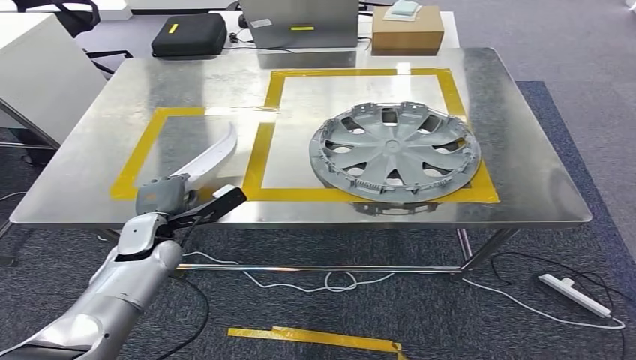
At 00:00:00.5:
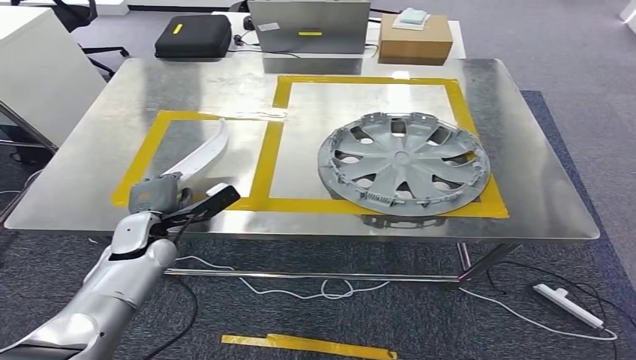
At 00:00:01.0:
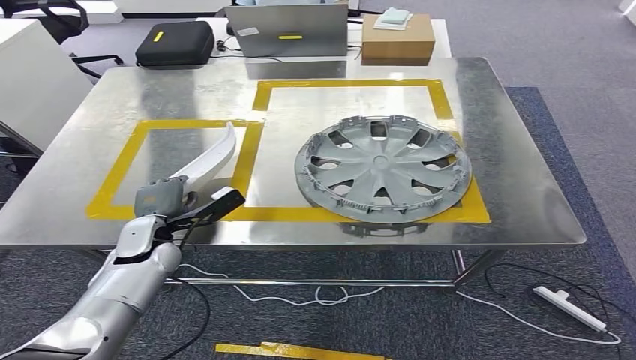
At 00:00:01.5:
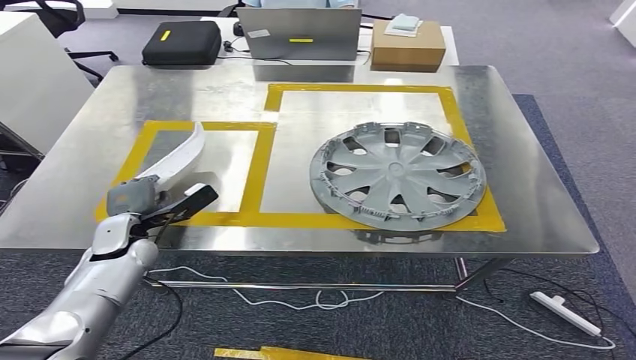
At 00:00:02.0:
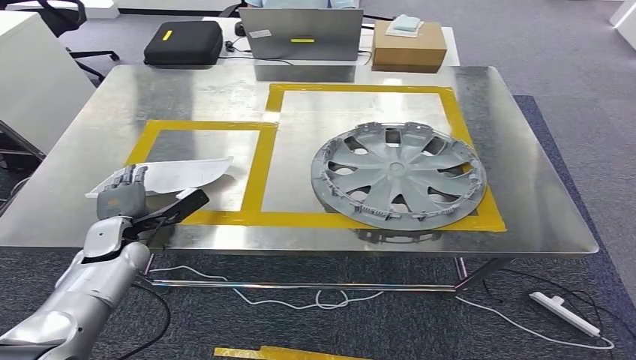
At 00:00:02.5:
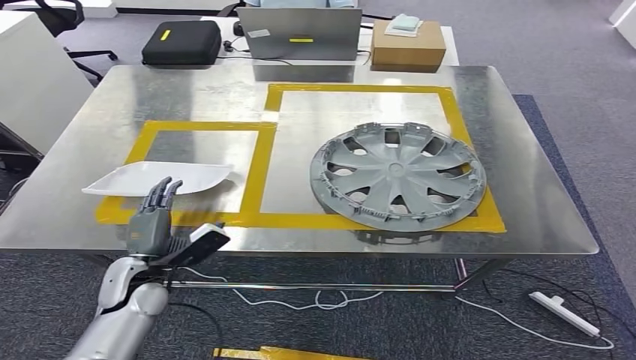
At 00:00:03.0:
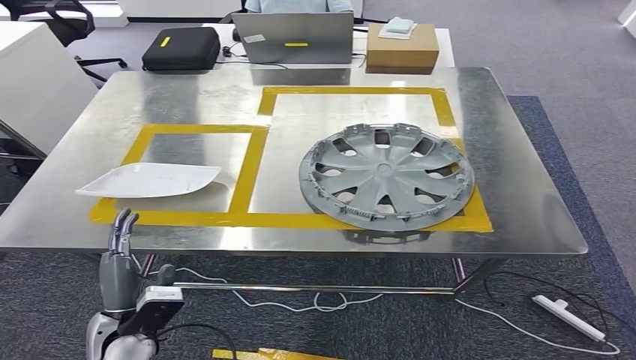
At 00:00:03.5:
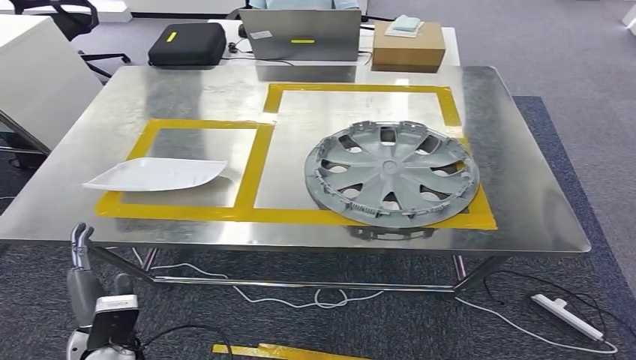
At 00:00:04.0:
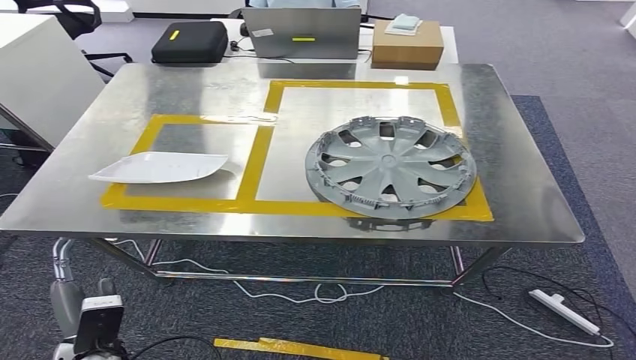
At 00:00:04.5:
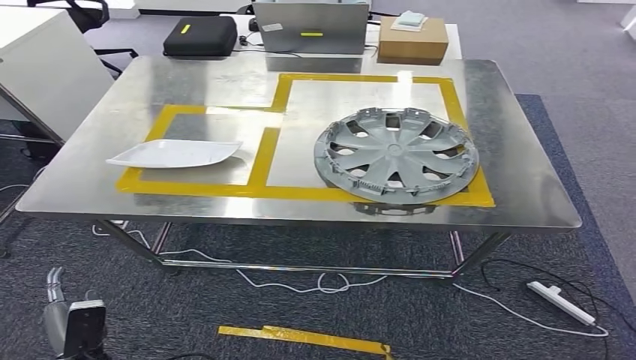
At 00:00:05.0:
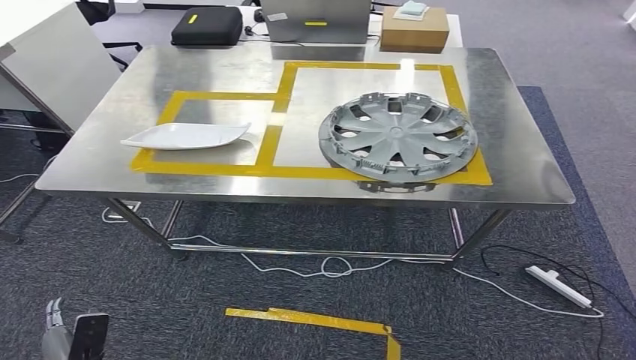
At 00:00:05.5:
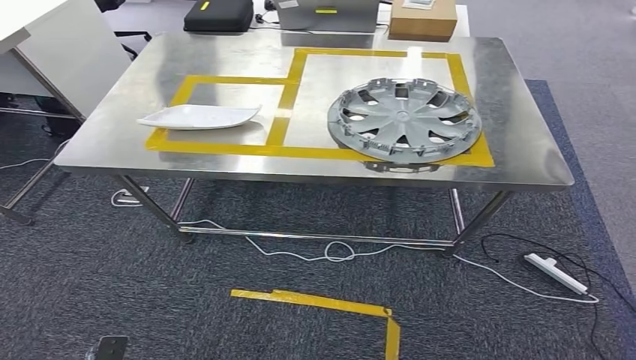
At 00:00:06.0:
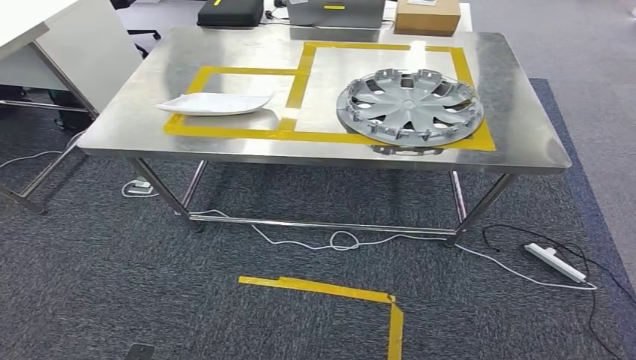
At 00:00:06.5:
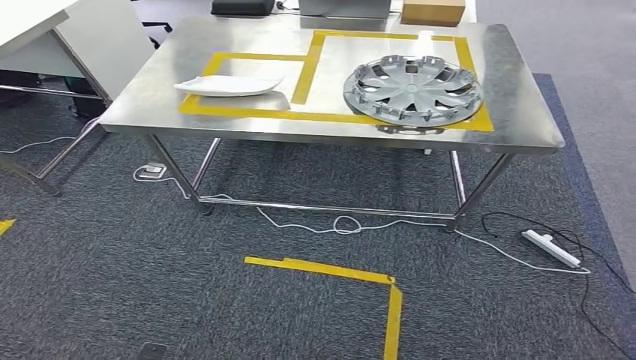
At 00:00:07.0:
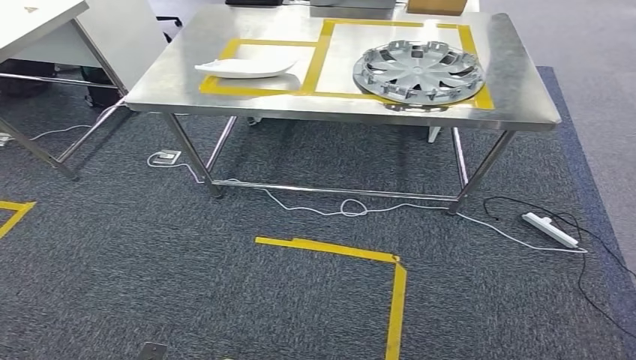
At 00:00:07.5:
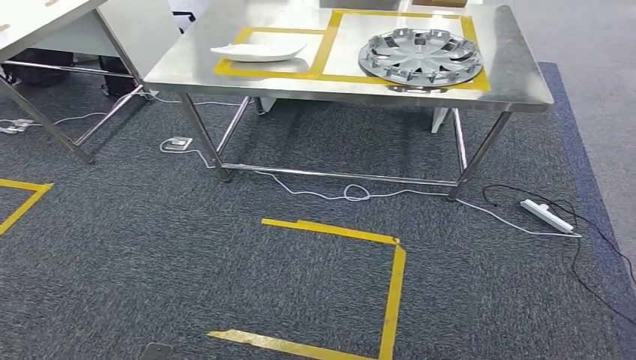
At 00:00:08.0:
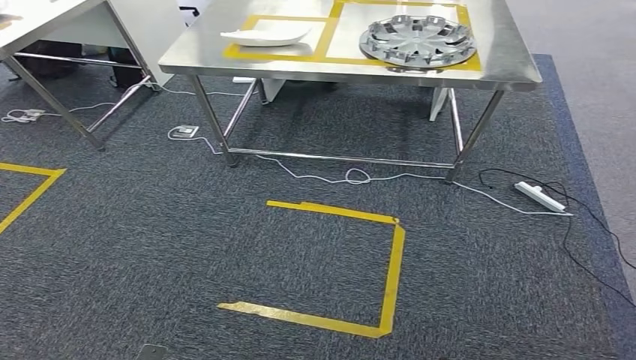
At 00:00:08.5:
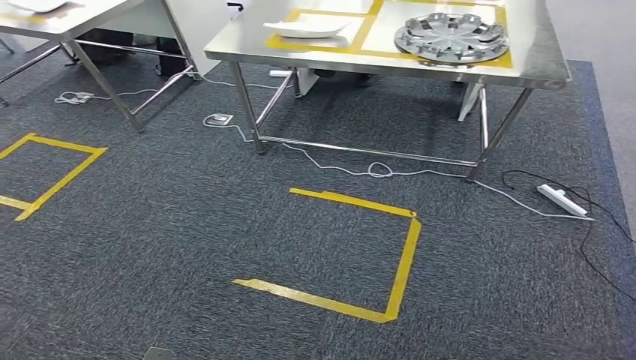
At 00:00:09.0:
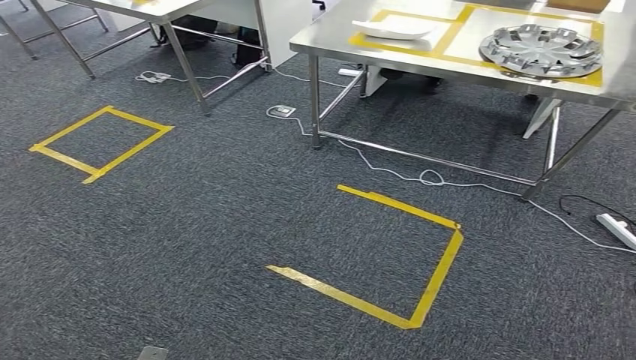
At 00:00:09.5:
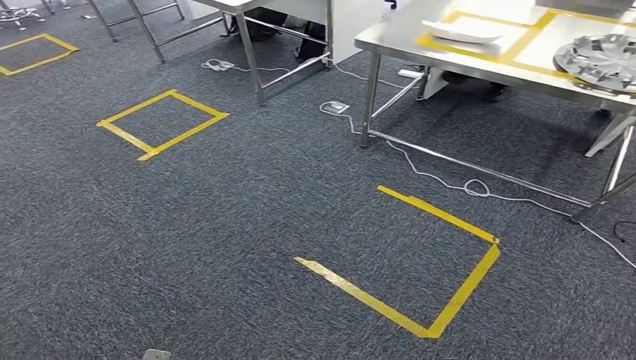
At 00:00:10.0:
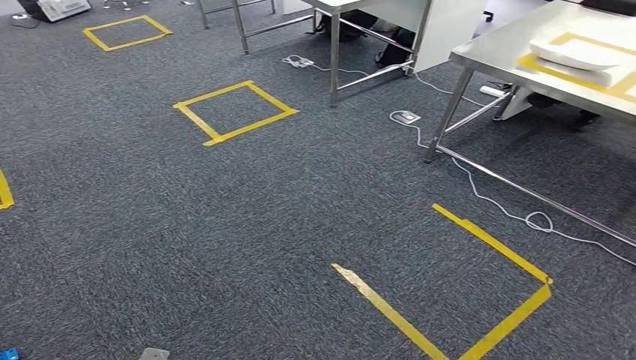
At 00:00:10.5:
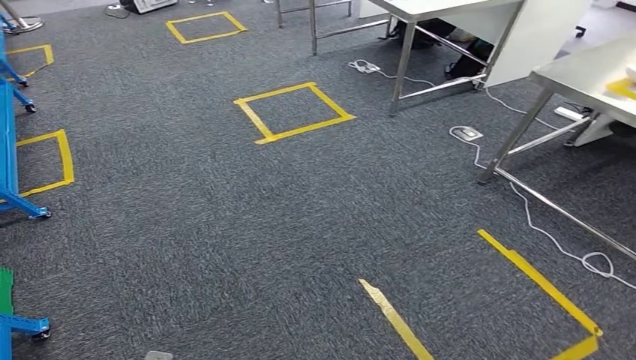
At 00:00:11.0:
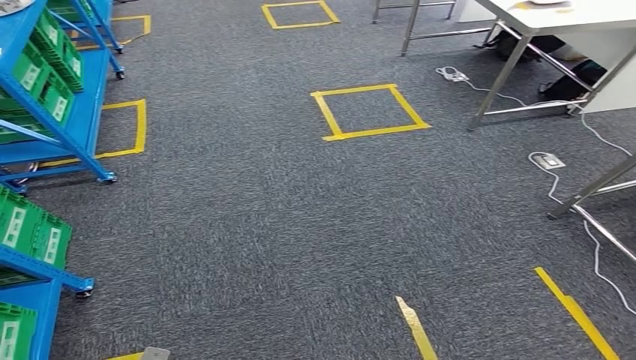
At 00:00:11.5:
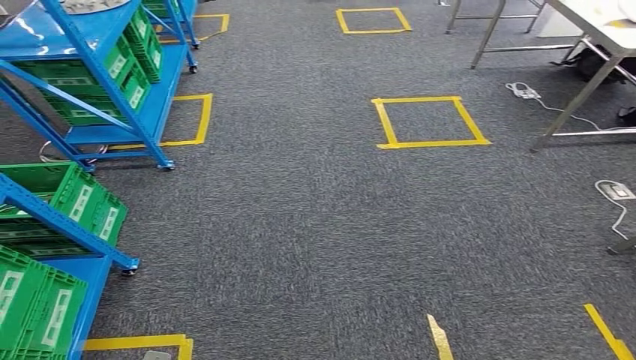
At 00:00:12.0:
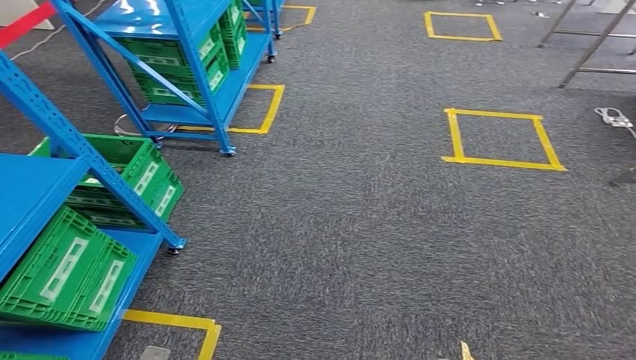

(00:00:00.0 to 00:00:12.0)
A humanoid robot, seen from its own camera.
Step, 00:00:00.0 - 00:00:06.5: Insert the small component into the corresponding slot on the workbench.

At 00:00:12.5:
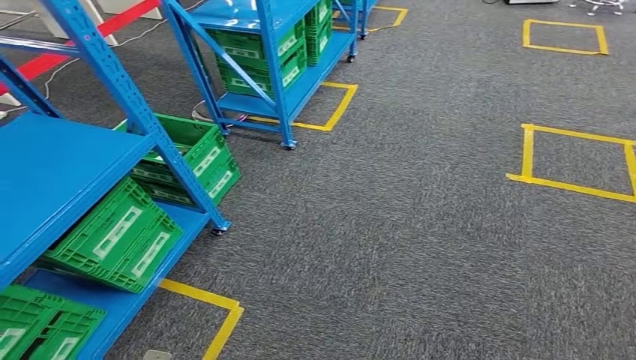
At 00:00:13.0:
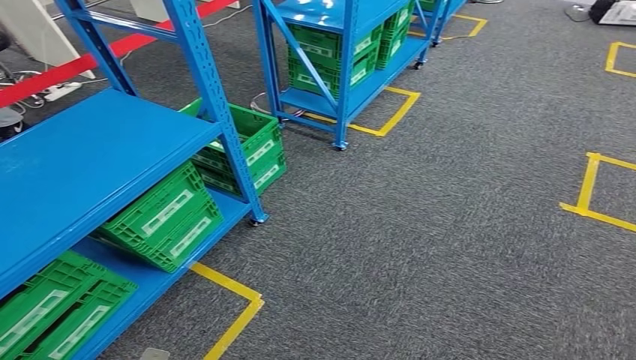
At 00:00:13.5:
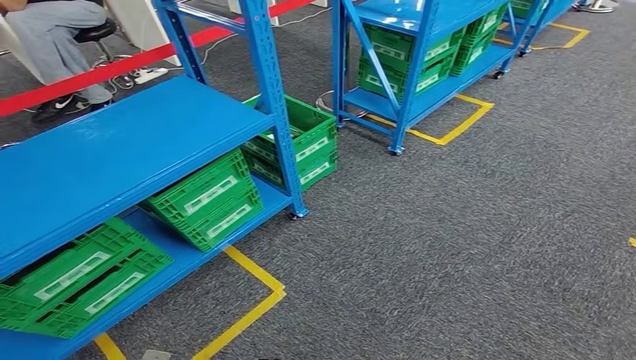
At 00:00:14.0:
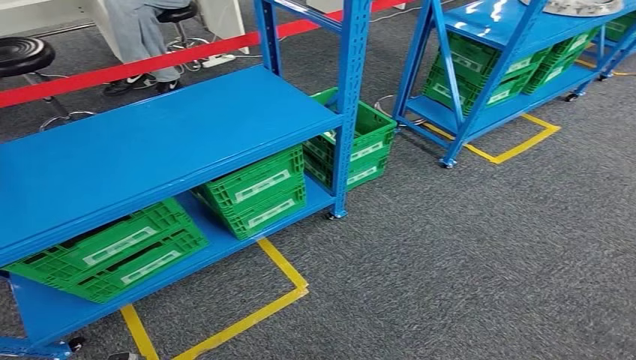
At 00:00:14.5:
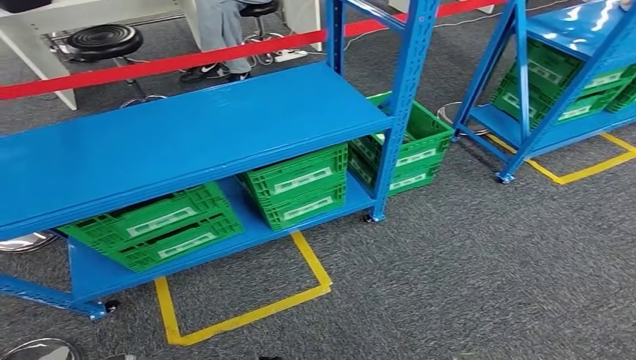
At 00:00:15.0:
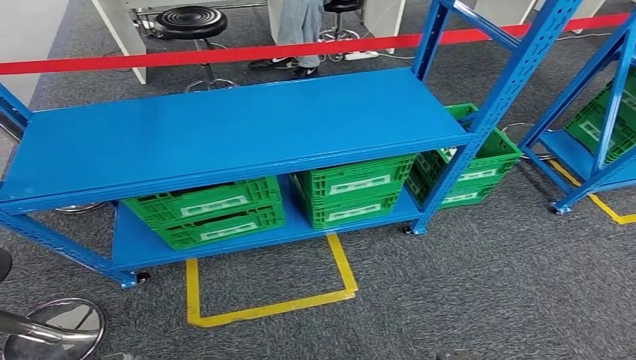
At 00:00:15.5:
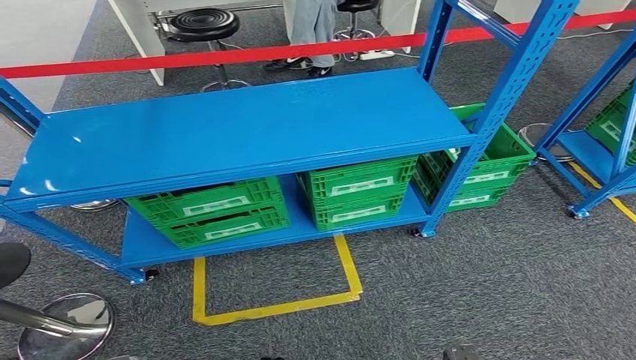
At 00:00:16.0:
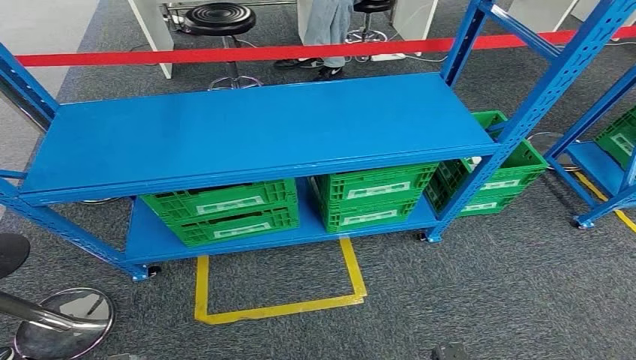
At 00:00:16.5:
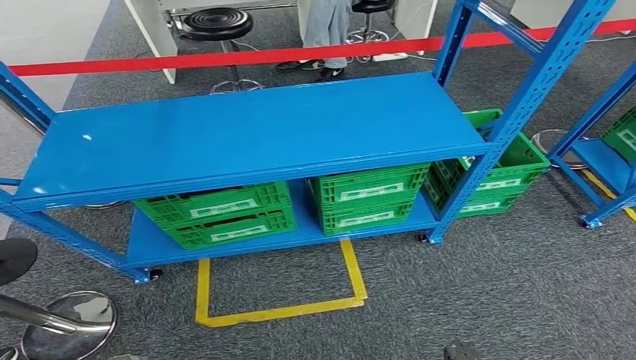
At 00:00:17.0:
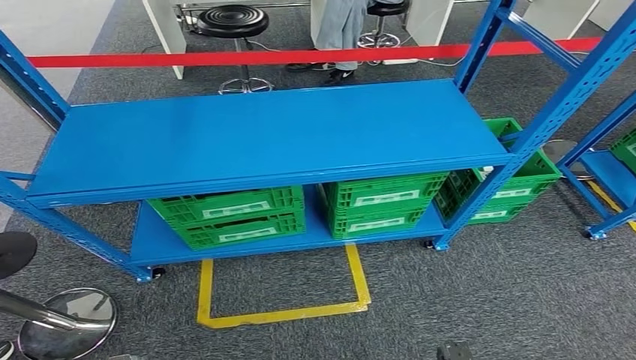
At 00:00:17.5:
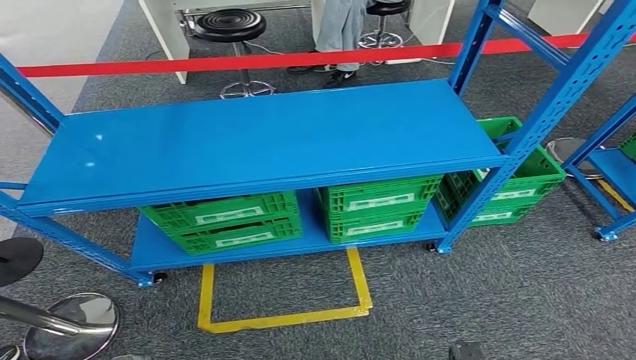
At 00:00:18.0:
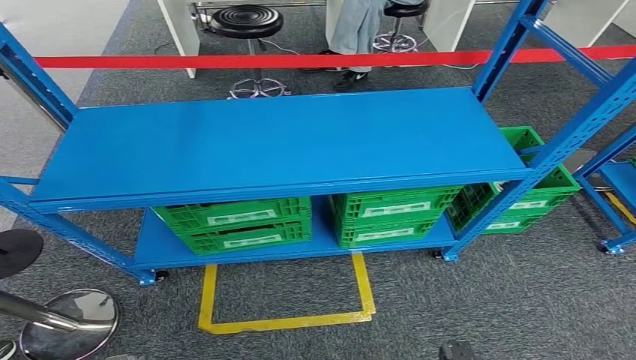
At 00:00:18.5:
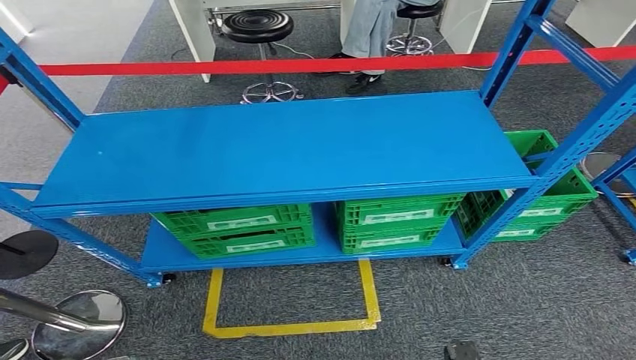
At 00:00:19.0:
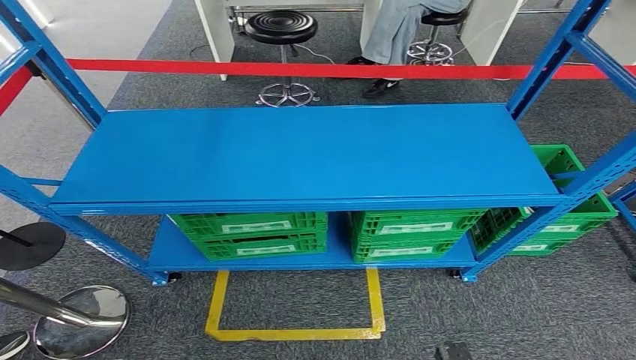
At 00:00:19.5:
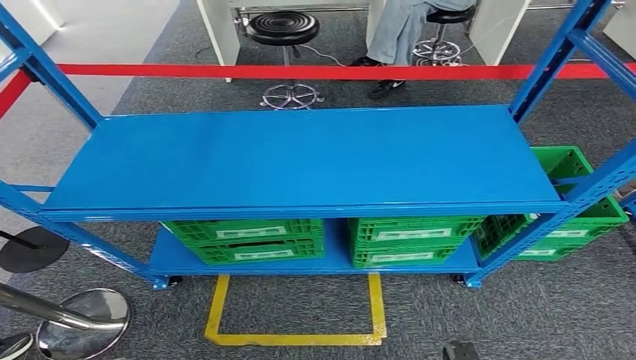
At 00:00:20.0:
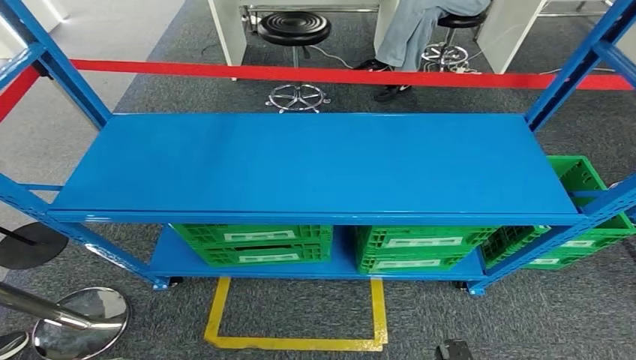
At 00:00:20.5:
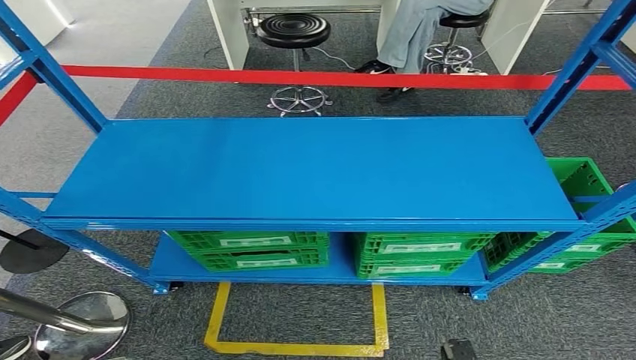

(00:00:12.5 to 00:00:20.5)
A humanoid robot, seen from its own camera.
Step, 00:00:12.5 - 00:00:20.5: Return to the initial position at the workbench.
